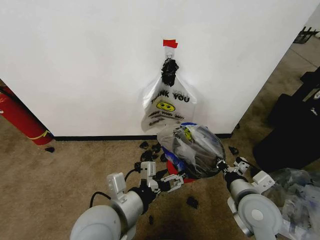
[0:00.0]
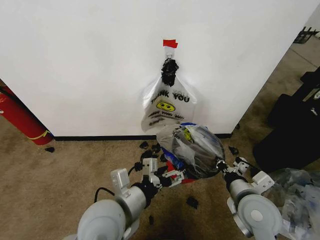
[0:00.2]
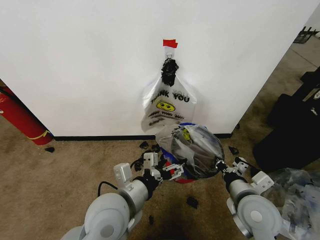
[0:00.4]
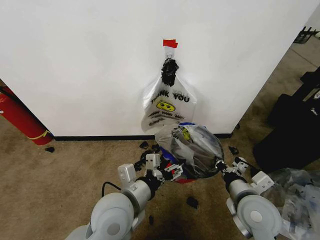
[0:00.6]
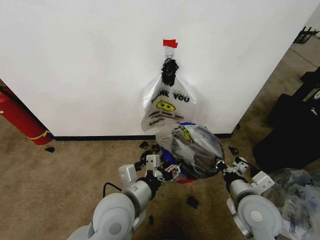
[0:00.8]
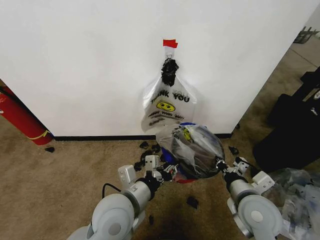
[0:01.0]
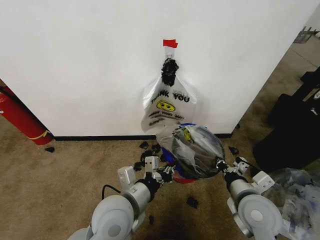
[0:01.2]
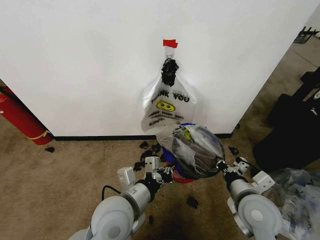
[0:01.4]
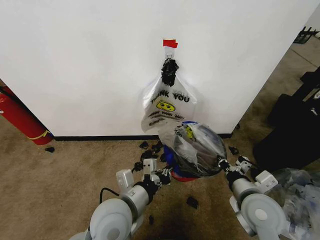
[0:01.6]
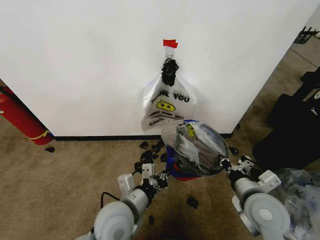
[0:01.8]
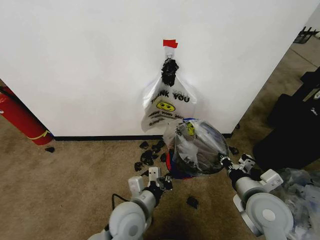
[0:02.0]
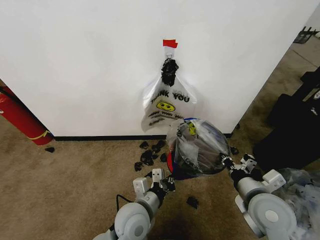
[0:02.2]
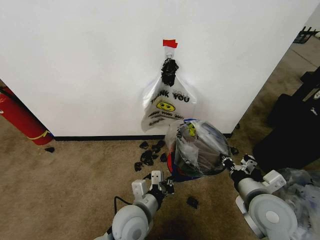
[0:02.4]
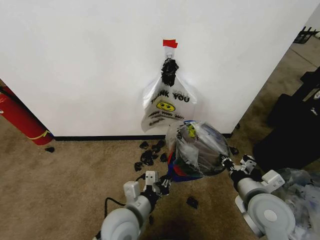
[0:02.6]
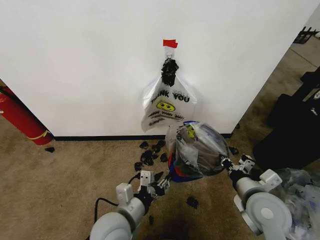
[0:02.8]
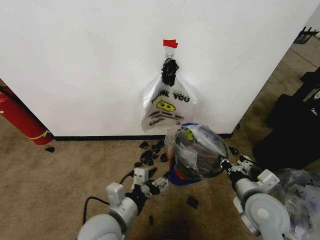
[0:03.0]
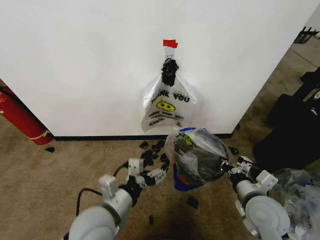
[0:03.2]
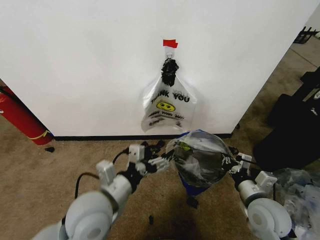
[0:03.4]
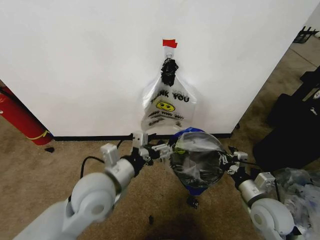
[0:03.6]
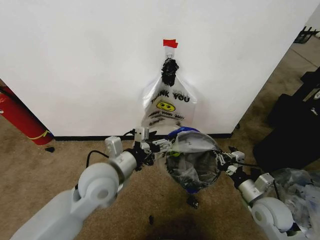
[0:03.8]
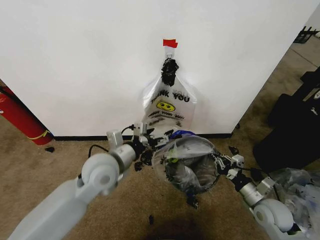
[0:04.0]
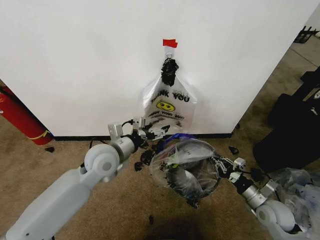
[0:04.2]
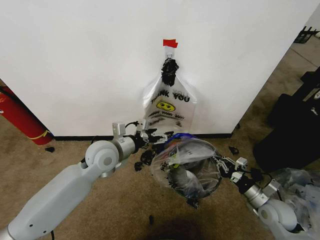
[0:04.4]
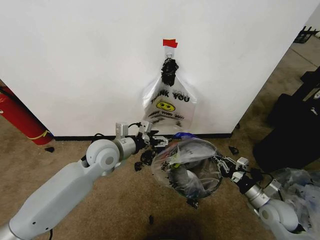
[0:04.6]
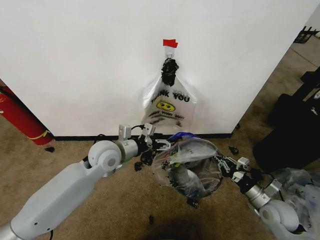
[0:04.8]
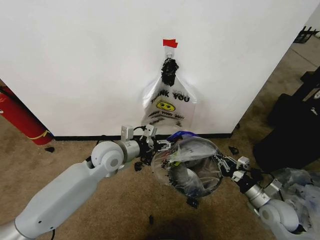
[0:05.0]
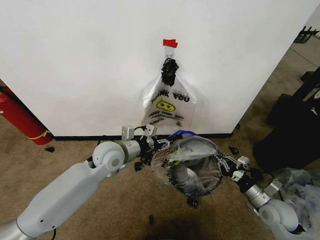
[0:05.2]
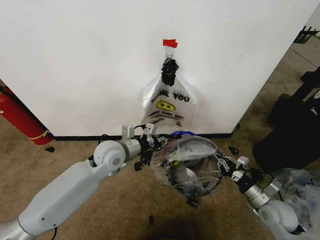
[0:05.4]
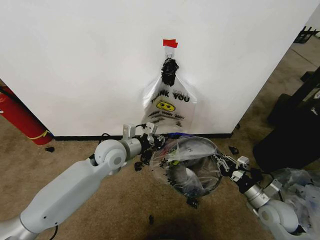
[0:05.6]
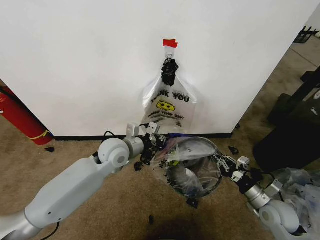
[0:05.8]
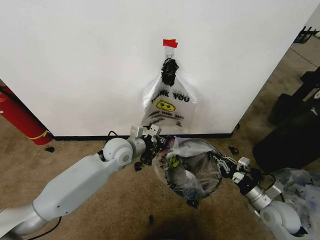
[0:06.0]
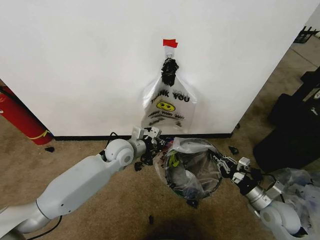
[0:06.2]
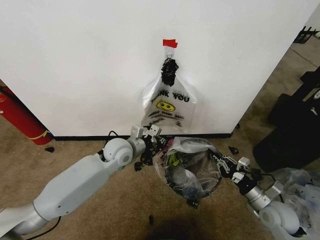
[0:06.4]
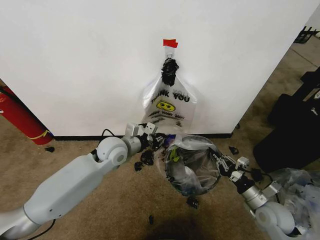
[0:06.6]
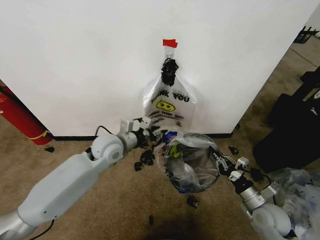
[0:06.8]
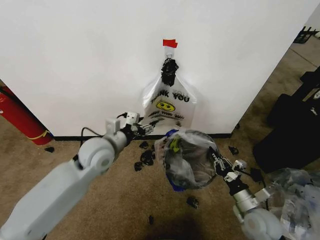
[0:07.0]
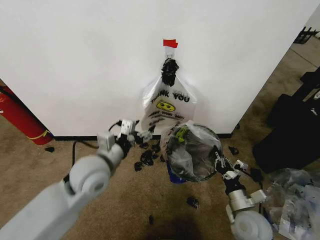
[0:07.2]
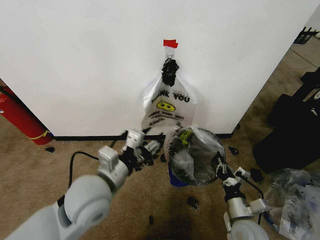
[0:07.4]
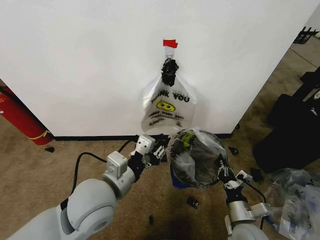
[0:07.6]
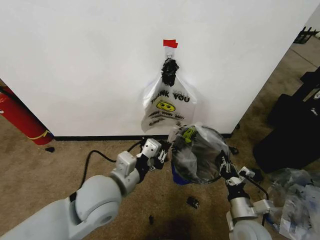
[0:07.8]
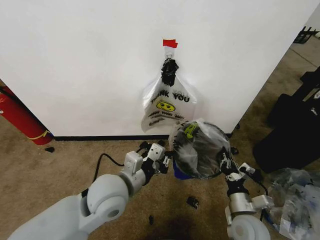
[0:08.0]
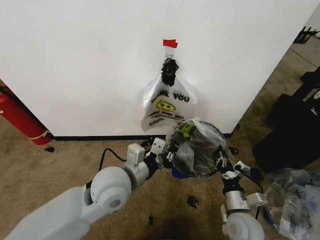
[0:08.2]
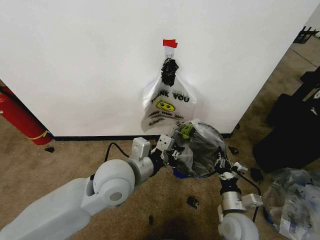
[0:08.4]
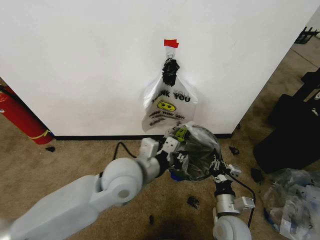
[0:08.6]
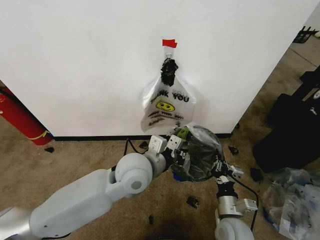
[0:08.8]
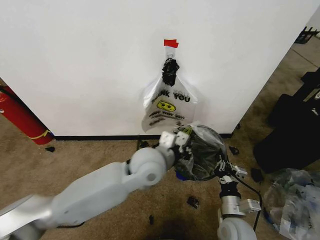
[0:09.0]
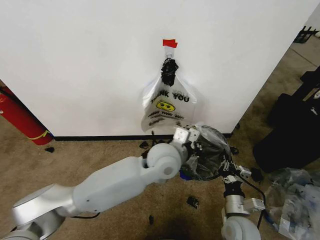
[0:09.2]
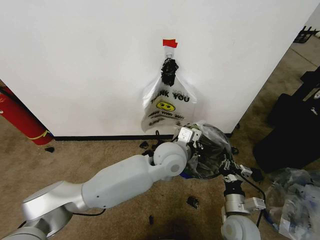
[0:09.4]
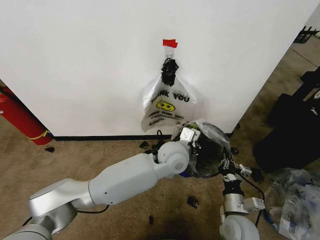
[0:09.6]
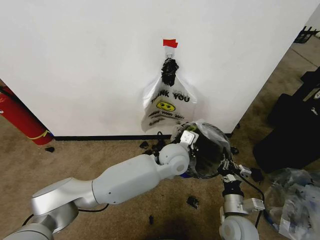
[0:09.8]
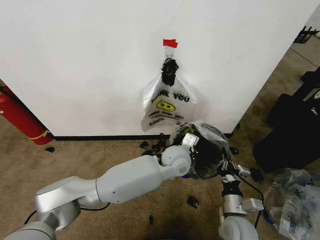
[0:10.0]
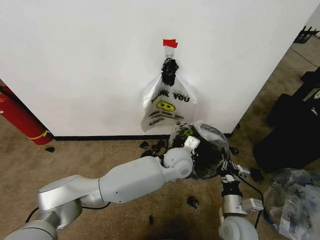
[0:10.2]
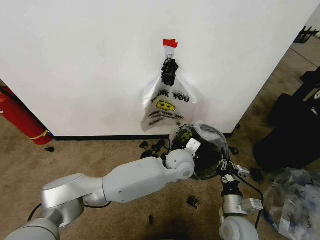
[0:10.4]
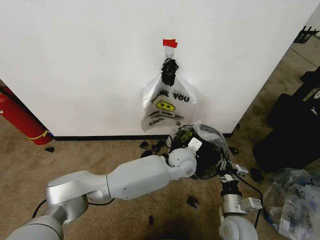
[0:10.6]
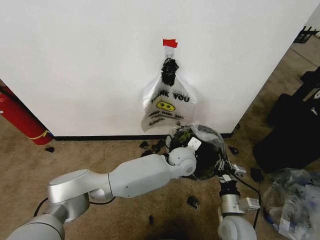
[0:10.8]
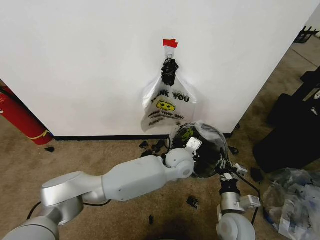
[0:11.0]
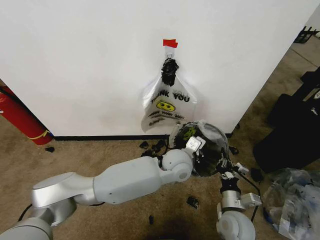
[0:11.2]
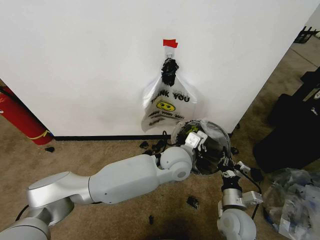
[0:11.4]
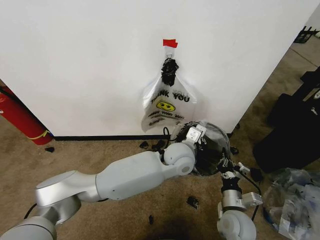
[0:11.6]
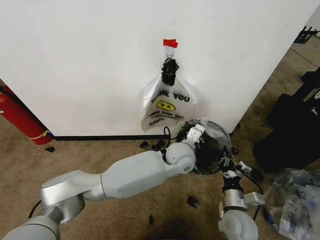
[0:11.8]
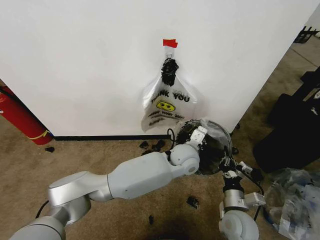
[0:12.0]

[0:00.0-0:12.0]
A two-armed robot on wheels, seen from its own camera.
Task of the whole recording: Pick up the garbage bag from the wall and place it over the trash bin.
0:00.0 to 0:01.6: The left gripper ends up about 5 cm from where it was, and closes.
0:01.6 to 0:03.0: The left gripper opens up.
0:03.0 to 0:04.4: The right gripper goes approximately 15 cm downward and to the right, while the left gripper shifts roughly 20 cm forward.
0:04.4 to 0:06.0: The left gripper shifts by about 5 cm, and closes its fingers.
0:06.0 to 0:07.6: The right gripper shifts some 15 cm to the left and backward, while the left gripper shifts approximately 20 cm backward, and opens, then closes once more.
0:07.6 to 0:09.0: The left gripper is displaced to the right and forward by roughly 15 cm.
0:09.0 to 0:10.4: The left gripper heads to the right, downward and forward, covering roughly 15 cm.
0:10.4 to 0:12.0: The grippers move only a little.

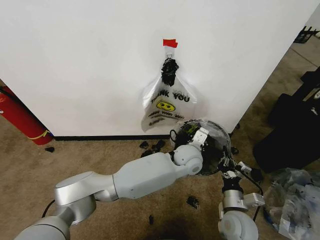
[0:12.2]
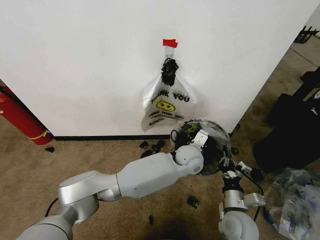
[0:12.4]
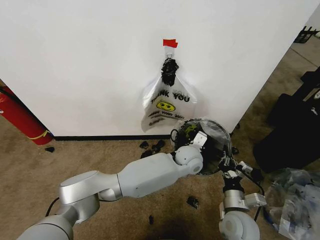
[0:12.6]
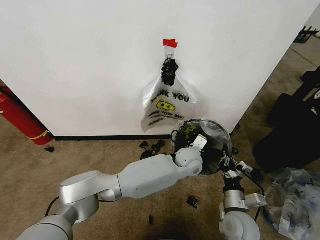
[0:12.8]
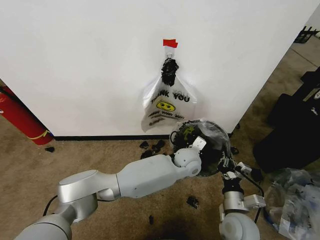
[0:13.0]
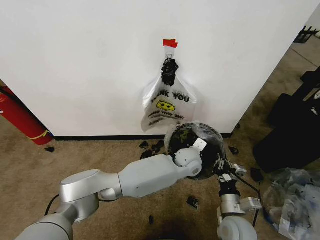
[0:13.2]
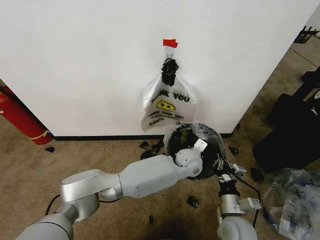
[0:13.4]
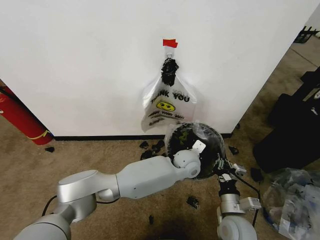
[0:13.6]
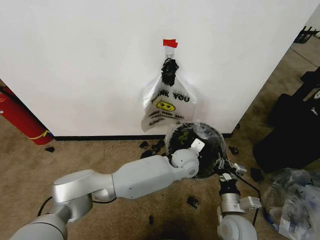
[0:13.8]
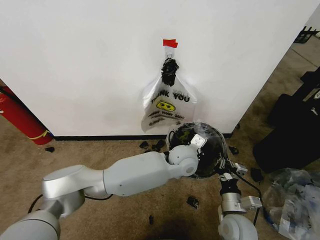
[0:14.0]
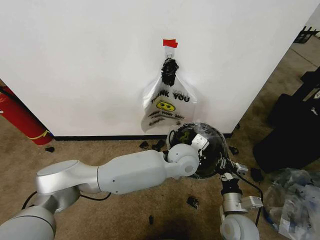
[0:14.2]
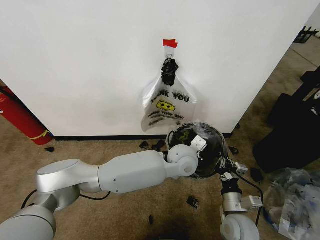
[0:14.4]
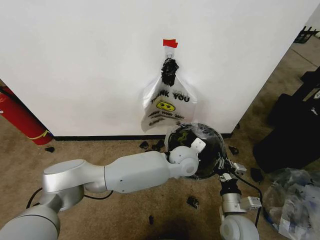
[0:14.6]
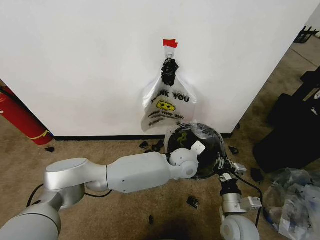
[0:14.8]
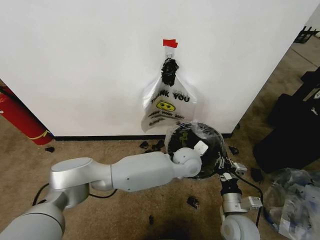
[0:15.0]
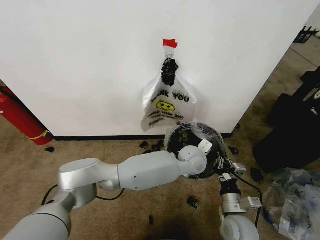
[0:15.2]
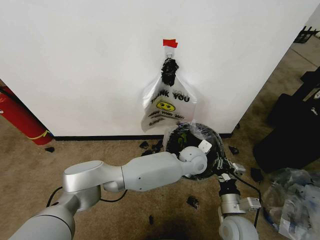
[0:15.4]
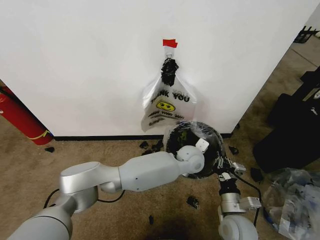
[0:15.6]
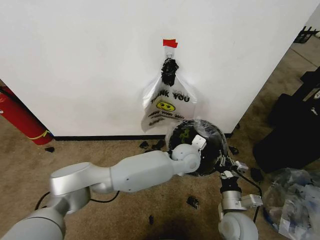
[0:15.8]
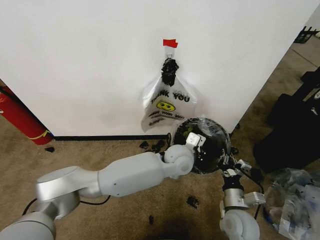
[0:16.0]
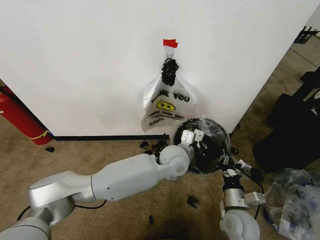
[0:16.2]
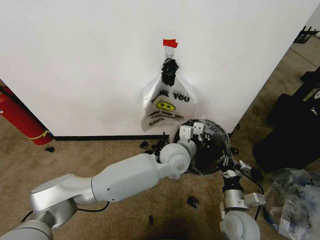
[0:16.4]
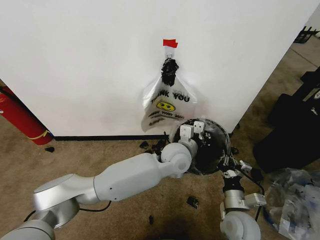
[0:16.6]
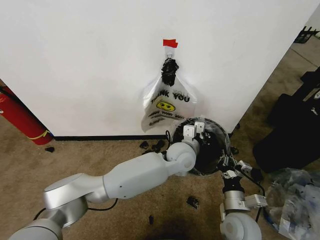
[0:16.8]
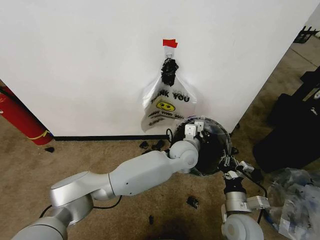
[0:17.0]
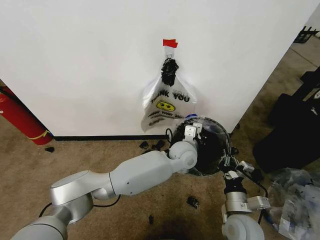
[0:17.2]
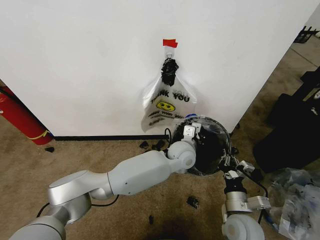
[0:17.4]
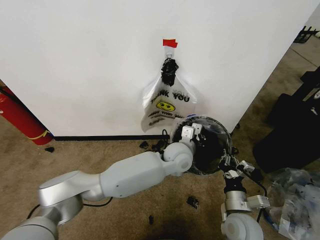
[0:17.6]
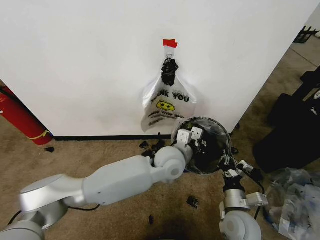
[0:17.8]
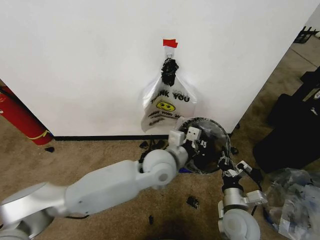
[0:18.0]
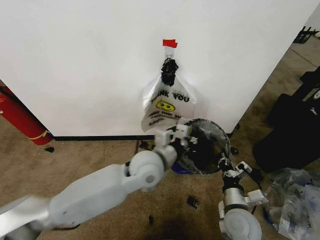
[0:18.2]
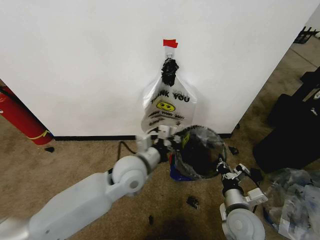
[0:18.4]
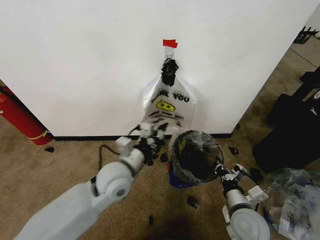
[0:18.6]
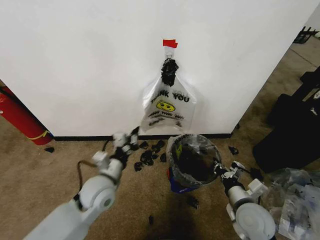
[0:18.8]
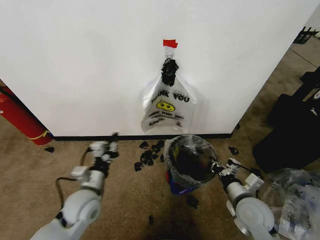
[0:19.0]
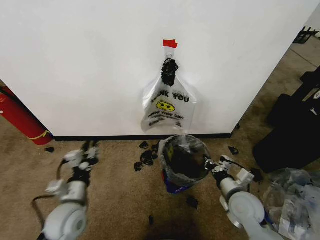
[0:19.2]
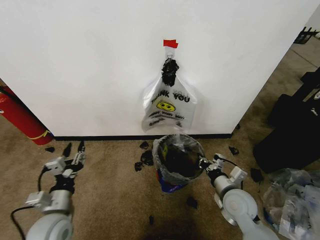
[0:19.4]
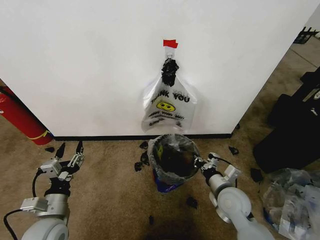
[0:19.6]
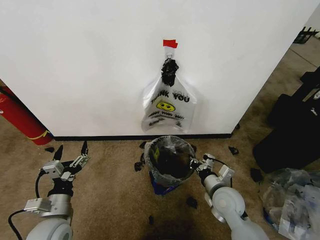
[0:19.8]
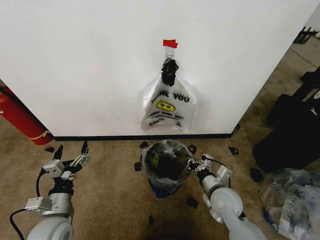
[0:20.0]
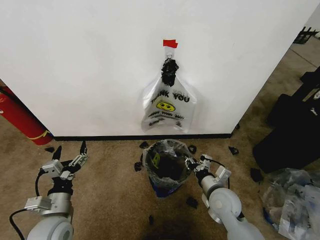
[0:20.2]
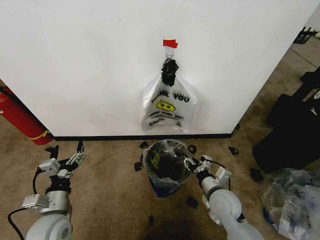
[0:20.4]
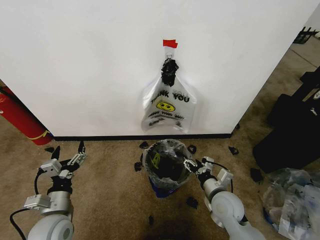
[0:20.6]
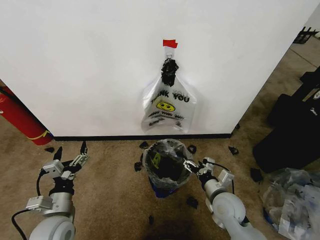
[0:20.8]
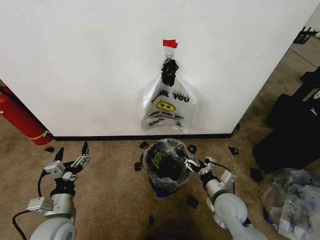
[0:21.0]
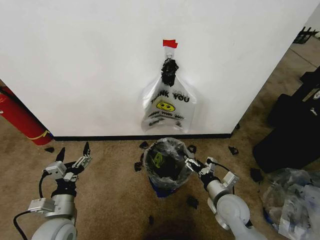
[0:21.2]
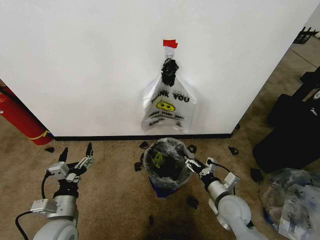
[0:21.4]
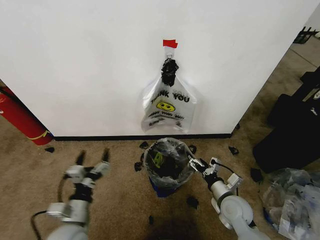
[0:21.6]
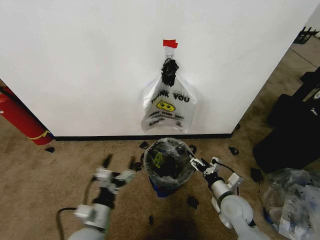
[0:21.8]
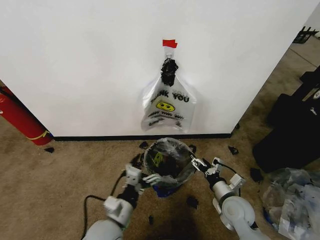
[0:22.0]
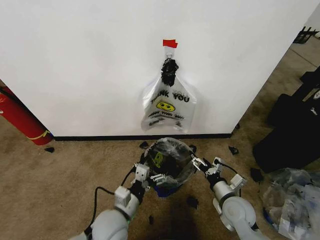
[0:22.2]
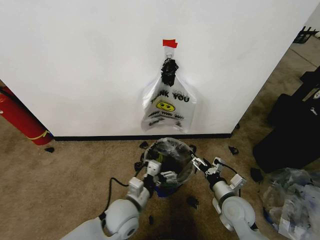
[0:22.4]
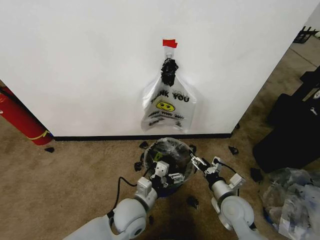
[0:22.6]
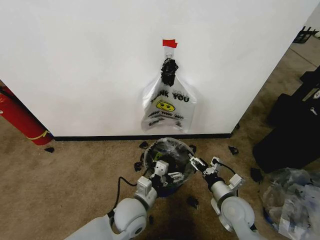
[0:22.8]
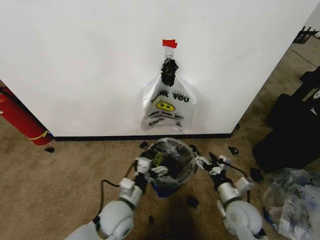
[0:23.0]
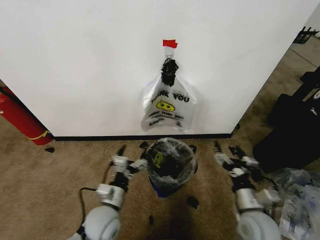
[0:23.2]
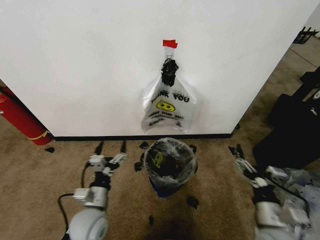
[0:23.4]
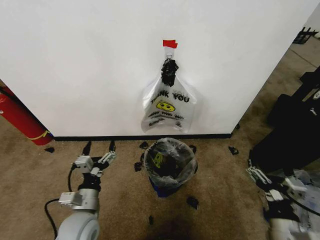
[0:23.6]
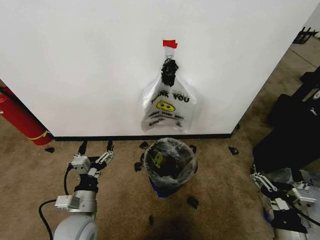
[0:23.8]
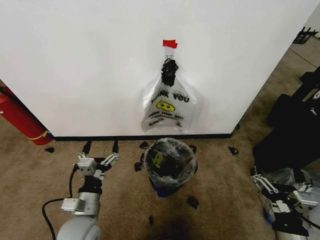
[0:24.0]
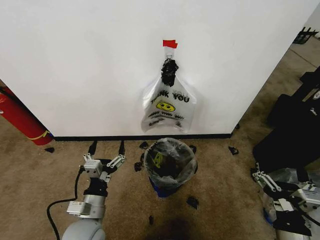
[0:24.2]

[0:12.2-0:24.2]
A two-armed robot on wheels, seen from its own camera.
Task of the whole recording: Pick up the garbage bag from the wall and place it over the trash bin.
0:12.2 to 0:13.8: There are only small adjustments of the grippers.
0:15.2 to 0:16.6: The left gripper travels to the left by some 5 cm.
0:16.6 to 0:18.2: The left gripper moves to the left and backward, about 10 cm.
0:18.2 to 0:19.8: The right gripper travels forward by about 5 cm, while the left gripper heads to the left, backward and downward, covering approximately 30 cm, and opens up.
0:19.8 to 0:21.2: The right gripper opens up.
0:21.2 to 0:22.6: The left gripper is displaced to the right by approximately 20 cm.
0:22.6 to 0:24.2: The left gripper is displaced to the left and backward by roughly 10 cm; the right gripper goes about 20 cm backward and upward.
